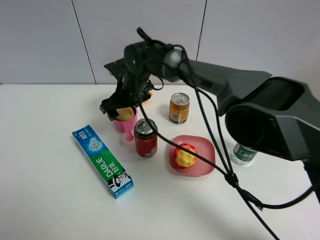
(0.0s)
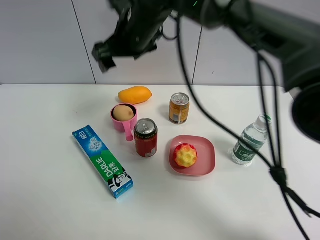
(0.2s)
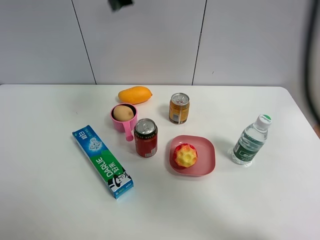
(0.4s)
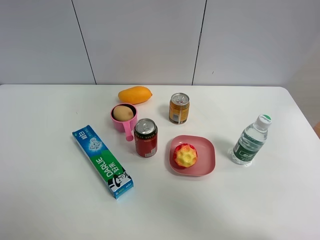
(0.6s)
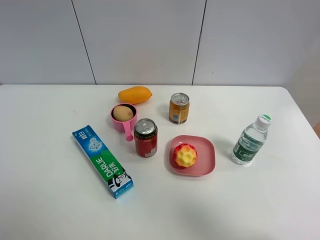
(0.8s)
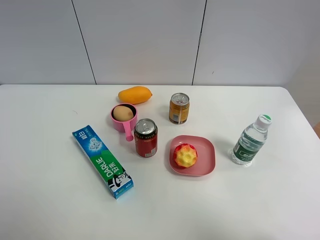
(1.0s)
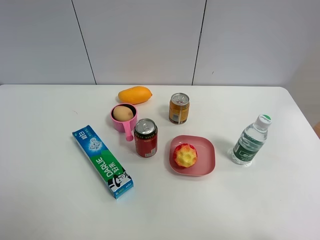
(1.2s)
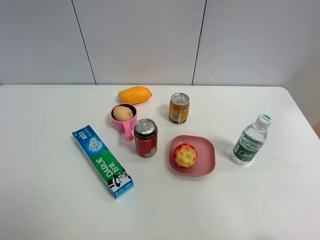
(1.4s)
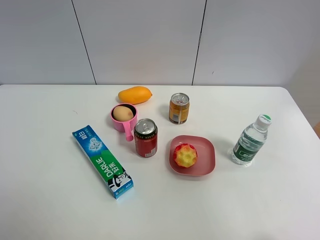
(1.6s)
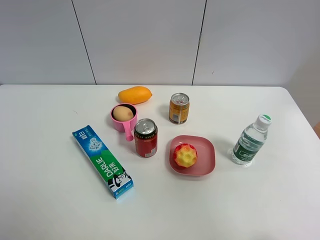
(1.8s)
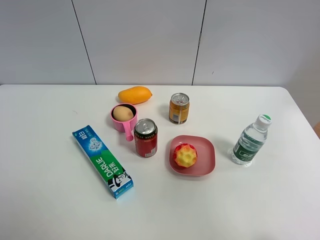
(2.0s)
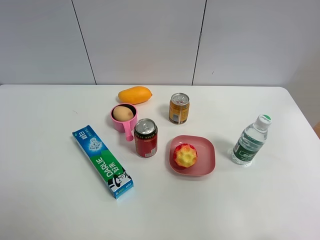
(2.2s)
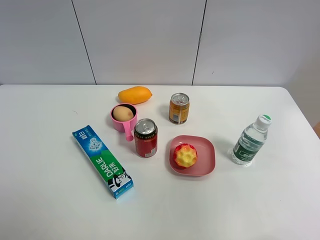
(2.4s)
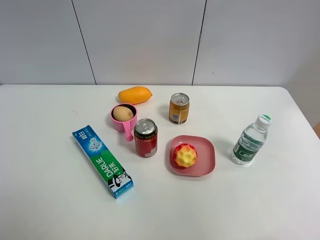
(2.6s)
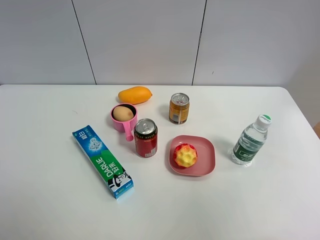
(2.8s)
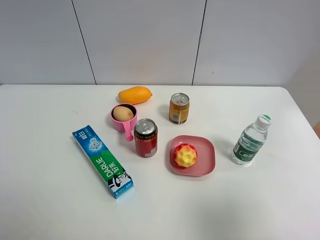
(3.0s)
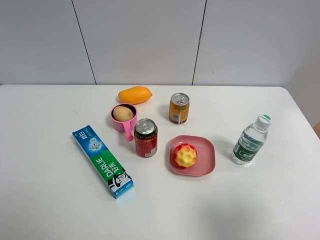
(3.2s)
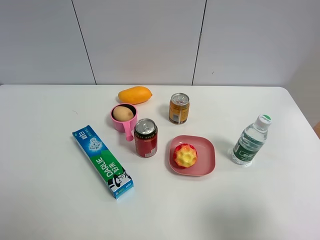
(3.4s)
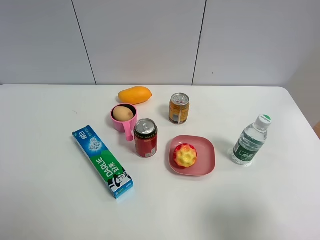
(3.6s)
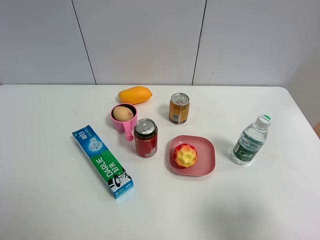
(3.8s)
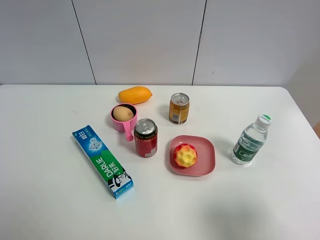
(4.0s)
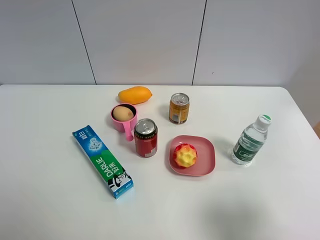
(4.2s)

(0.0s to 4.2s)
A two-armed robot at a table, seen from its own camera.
Task of the whole recording: the gripper move the object.
0.0s - 1.4s: The right gripper goes about 60 cm to the right, upward and backward.
1.4s - 2.8s: The right gripper is displaced downward and backward by roughly 15 cm.
2.8s - 4.2s: The right gripper heads downward, covering approximately 15 cm.

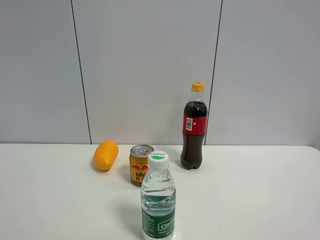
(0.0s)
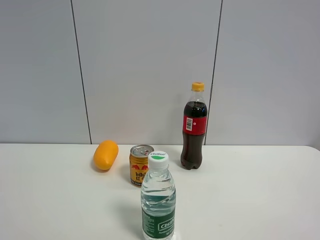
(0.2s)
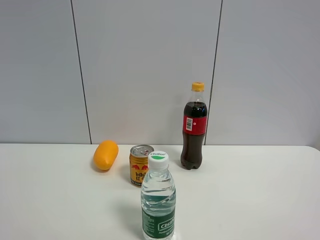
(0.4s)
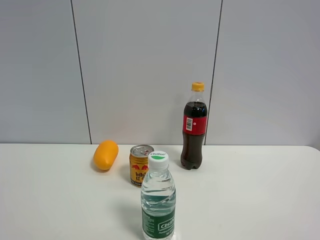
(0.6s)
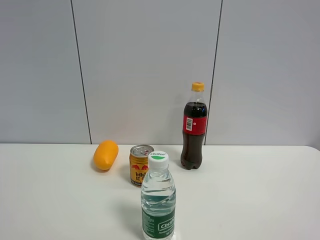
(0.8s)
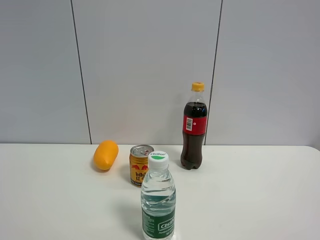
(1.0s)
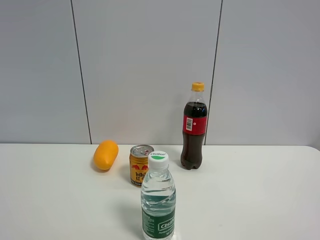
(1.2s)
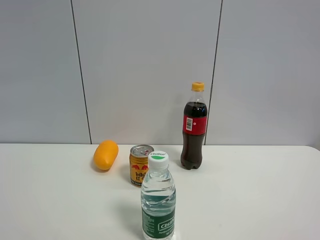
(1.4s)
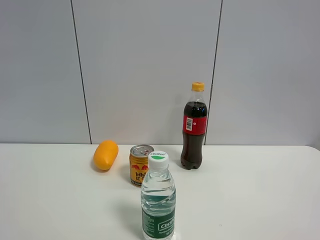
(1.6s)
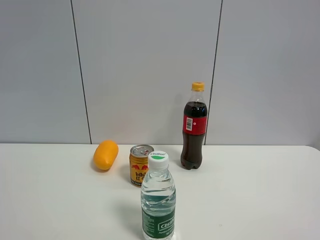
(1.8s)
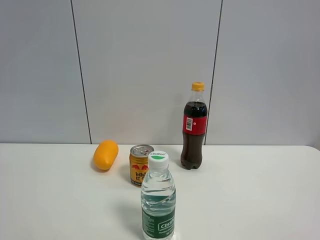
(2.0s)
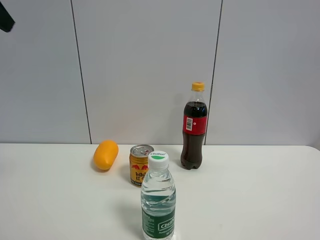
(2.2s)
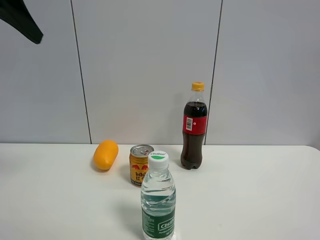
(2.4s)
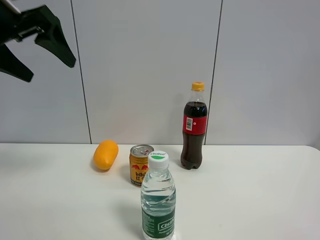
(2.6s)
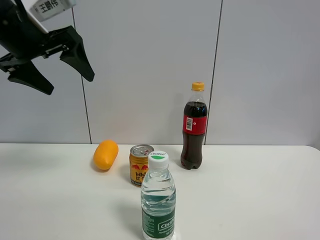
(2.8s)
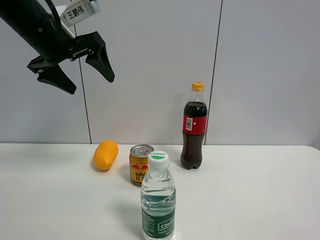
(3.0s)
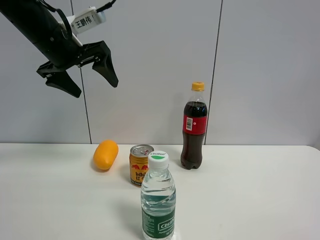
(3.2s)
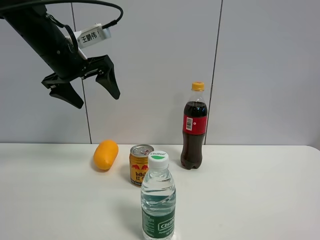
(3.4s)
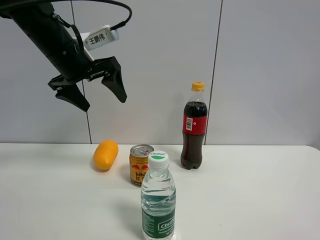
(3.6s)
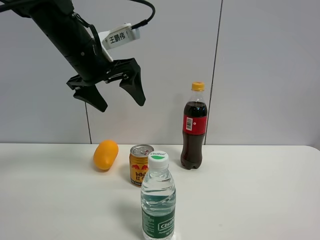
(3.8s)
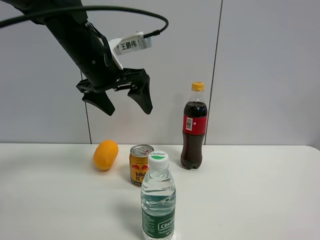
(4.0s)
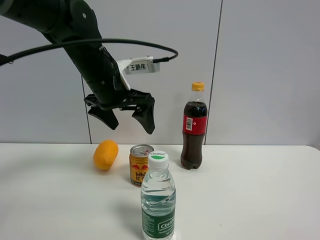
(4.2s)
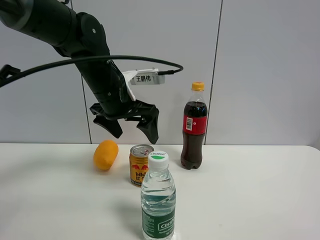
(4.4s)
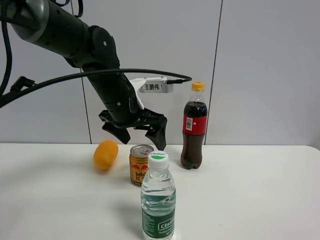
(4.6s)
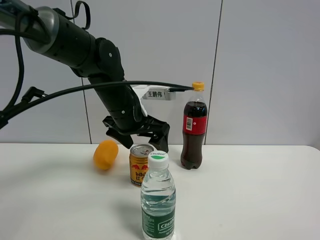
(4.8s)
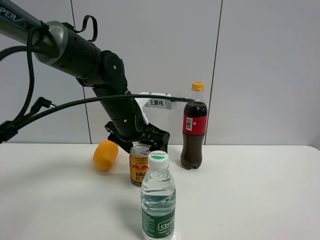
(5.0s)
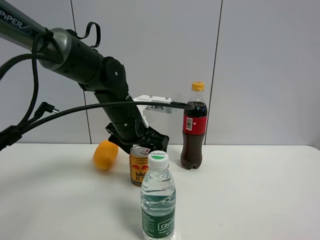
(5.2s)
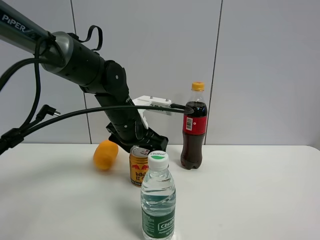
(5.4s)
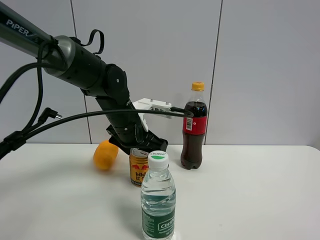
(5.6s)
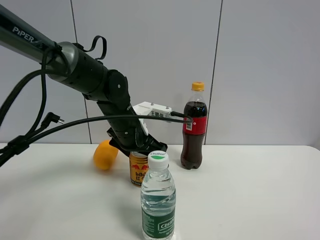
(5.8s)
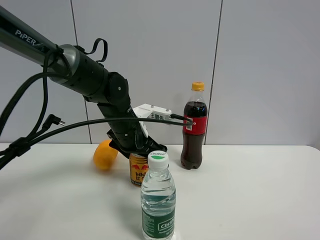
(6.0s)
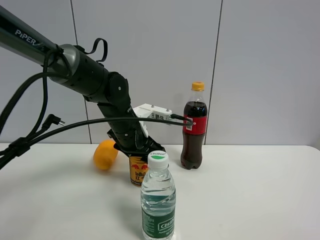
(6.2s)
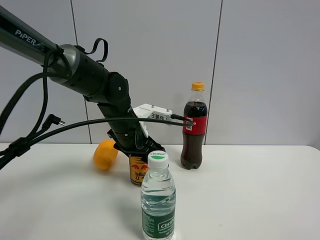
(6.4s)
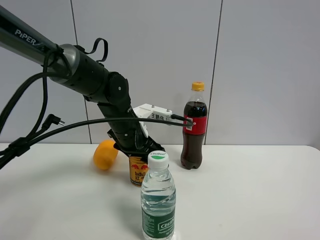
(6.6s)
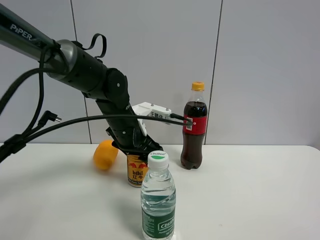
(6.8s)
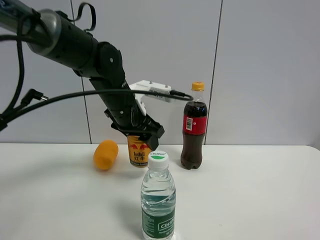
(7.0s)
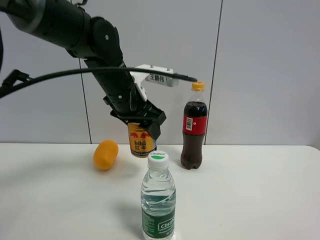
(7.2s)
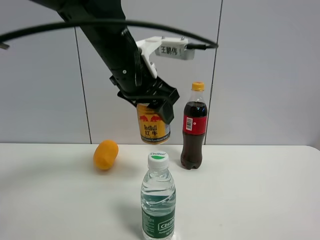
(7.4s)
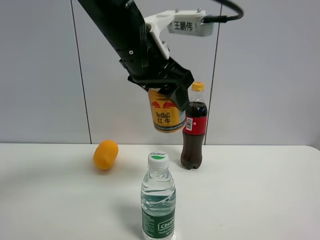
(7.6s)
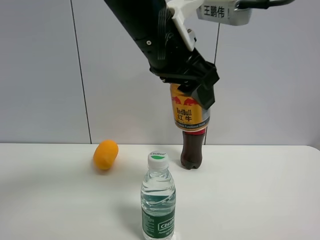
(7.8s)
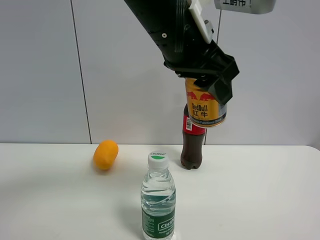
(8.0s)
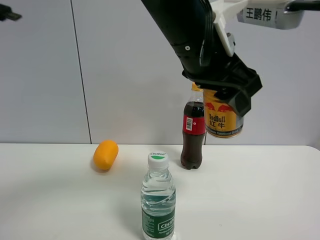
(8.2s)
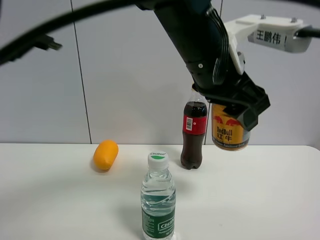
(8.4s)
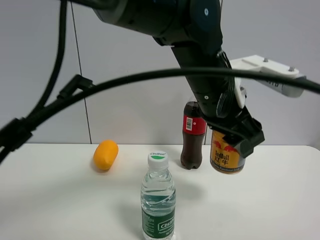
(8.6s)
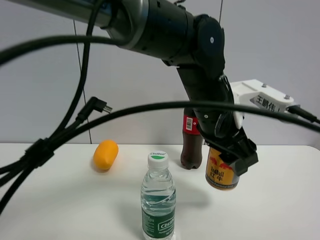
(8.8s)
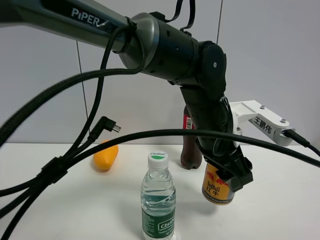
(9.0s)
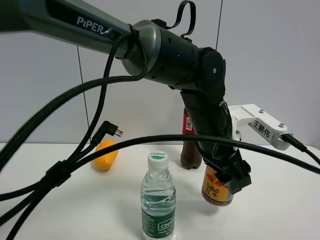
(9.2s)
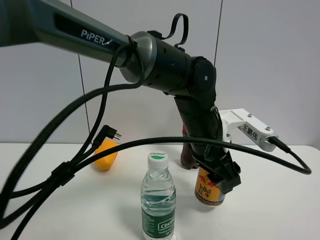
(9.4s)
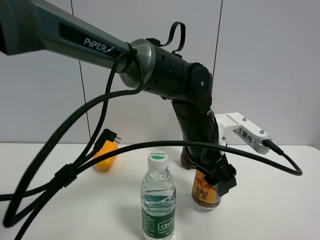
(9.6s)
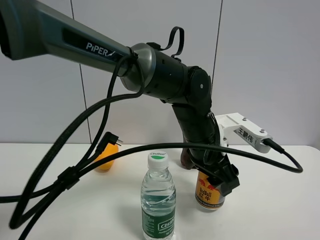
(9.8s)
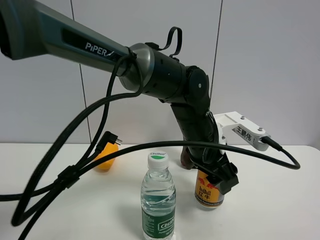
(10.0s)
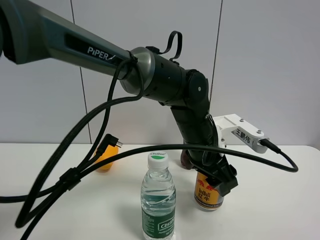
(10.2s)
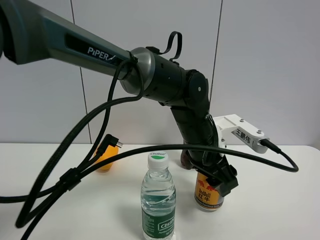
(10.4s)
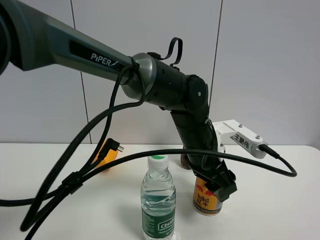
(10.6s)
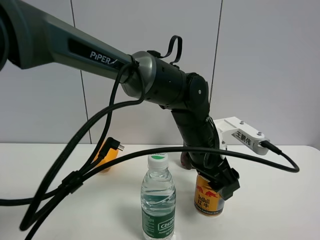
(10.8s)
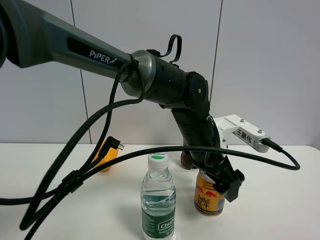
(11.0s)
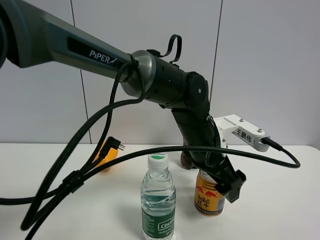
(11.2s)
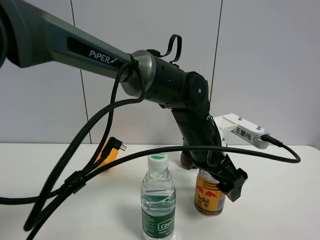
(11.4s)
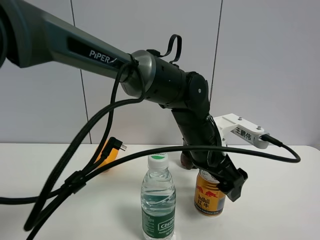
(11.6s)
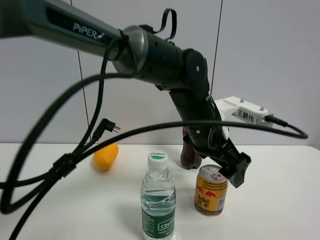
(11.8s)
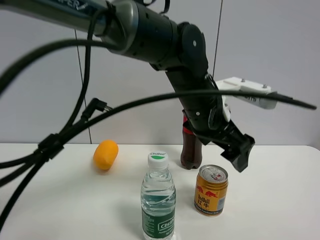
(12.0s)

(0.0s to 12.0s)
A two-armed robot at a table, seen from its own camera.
Task of the whole recording: the gripper move the object.
Step, 0.0s - 6.2s: Grasp the red bull with the left gripper.
Step, 6.4s - 10.8s: Place the red bull on the table with the left gripper.
1.6s - 3.0s: The left gripper goes about 30 cm forward and downward.
3.0s - 4.4s: The left gripper shifts roughly 15 cm to the right and downward.
4.4s - 6.0s: The left gripper goes approximately 10 cm downward.
6.0s - 7.6s: The left gripper goes about 20 cm upward and backward, and closes its fingers.
7.6s - 9.0s: The left gripper travels downward and to the right by some 15 cm.
10.4s - 12.0s: The left gripper travels upward by approximately 10 cm, and opens its fingers.

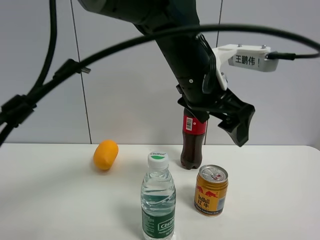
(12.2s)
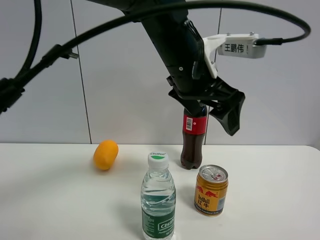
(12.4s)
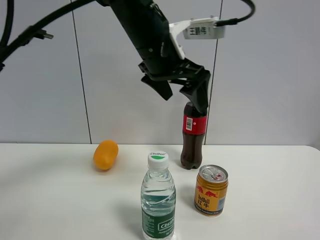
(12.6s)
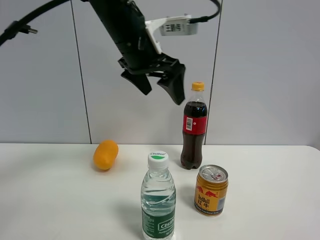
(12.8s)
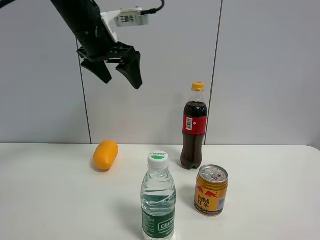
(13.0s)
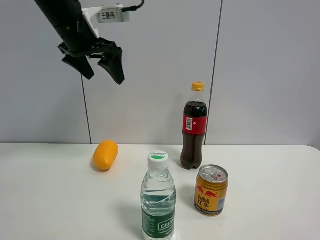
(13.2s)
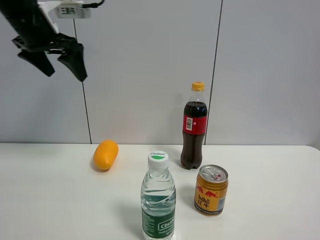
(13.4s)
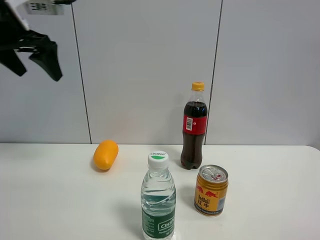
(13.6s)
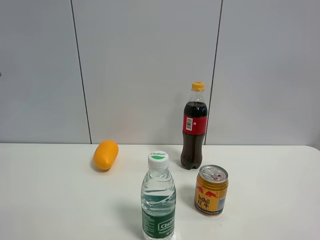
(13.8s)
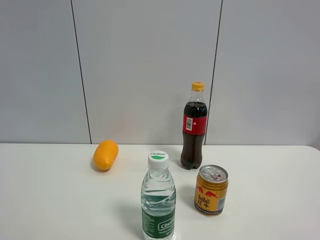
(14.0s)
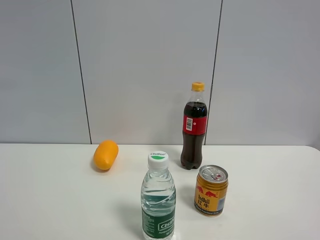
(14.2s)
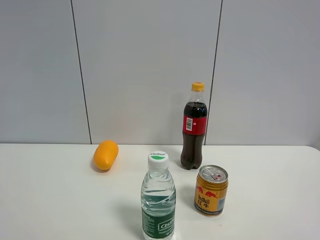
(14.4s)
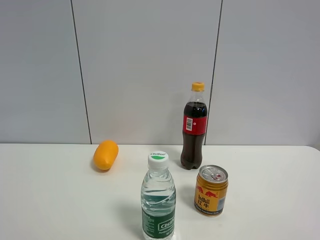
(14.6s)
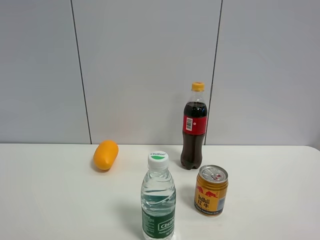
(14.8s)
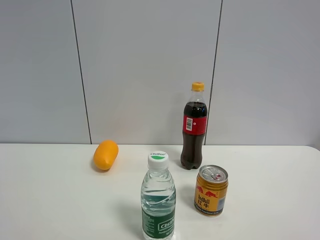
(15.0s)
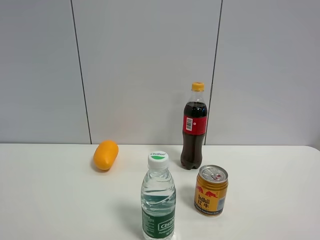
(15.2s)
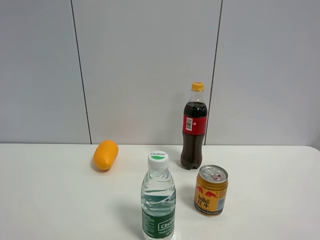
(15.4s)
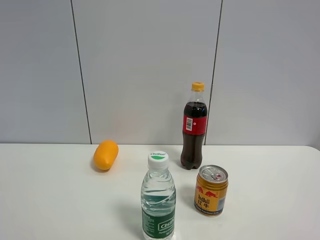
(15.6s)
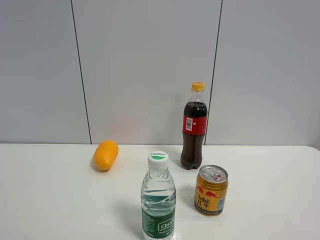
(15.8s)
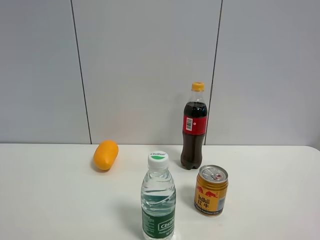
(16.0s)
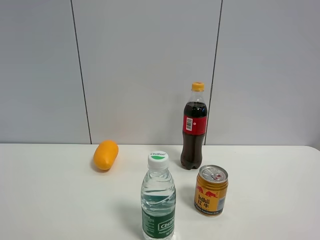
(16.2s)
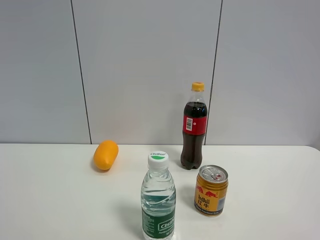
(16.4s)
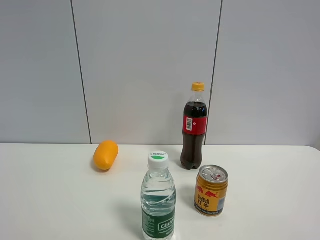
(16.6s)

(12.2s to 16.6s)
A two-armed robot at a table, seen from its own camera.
Task of the whole recording: the gripper move the object.
12.2s - 13.6s: The left gripper heads to the left, covering about 35 cm.
13.6s - 15.2s: The left gripper goes roughly 35 cm backward.
15.2s - 16.6s: Neither gripper changes place.

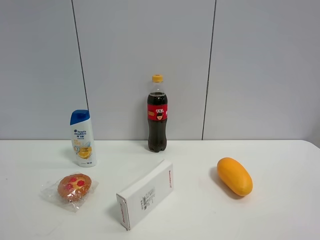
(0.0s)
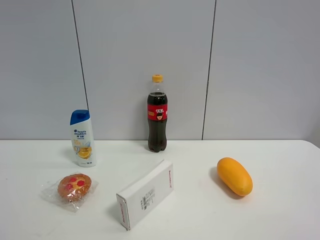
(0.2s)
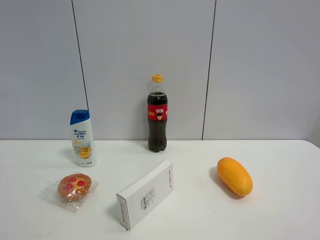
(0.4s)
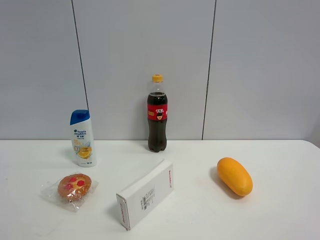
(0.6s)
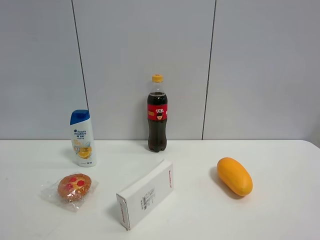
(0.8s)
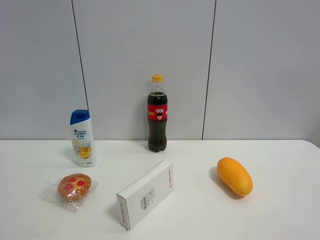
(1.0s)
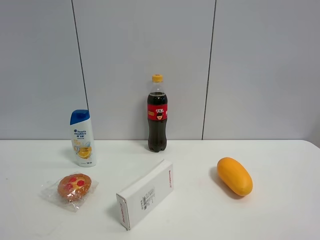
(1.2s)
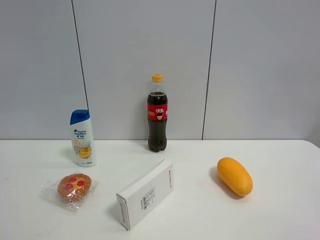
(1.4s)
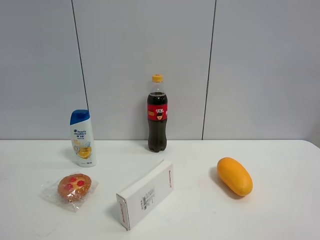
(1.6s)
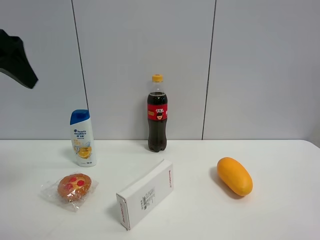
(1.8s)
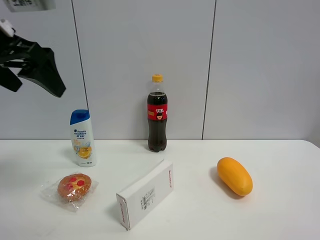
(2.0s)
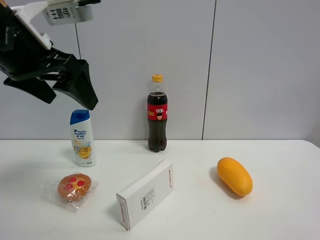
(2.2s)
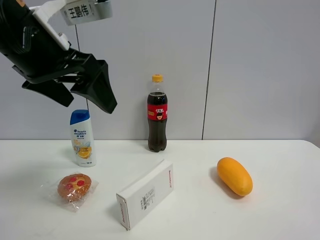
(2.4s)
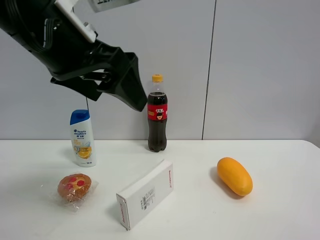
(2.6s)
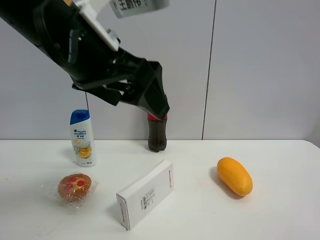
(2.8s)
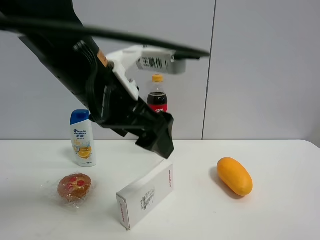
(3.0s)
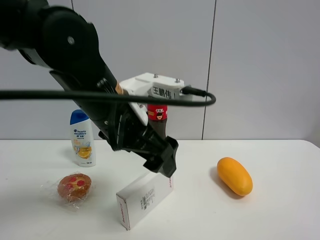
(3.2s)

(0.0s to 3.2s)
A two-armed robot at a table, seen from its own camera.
Task of the whole recording: the gripper move the object.
1.6s - 3.2s: The left gripper heads to the right and downward, covering some 30 cm.
